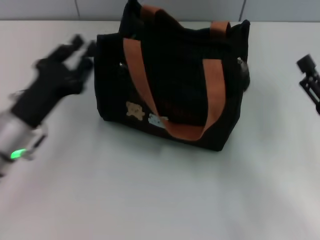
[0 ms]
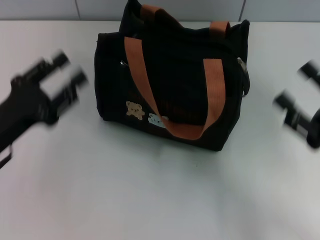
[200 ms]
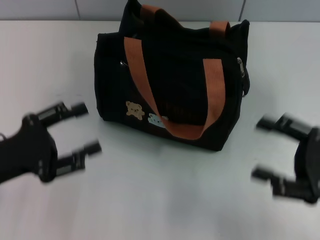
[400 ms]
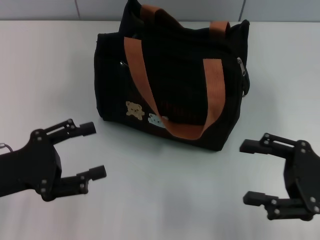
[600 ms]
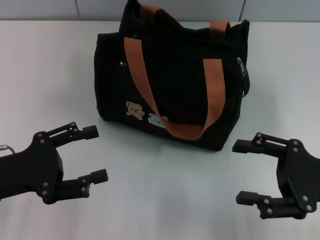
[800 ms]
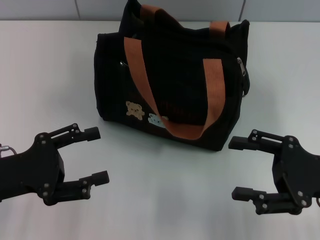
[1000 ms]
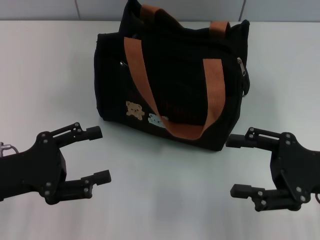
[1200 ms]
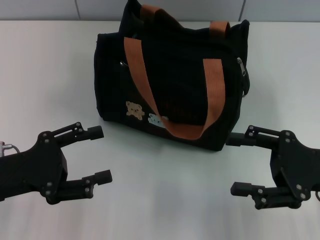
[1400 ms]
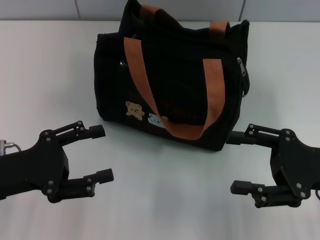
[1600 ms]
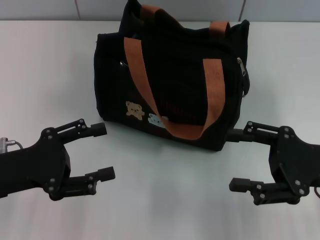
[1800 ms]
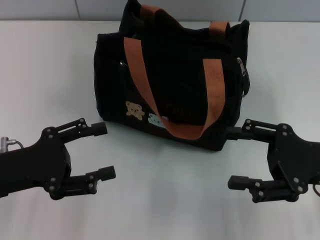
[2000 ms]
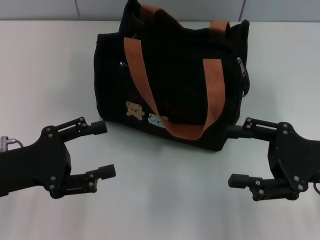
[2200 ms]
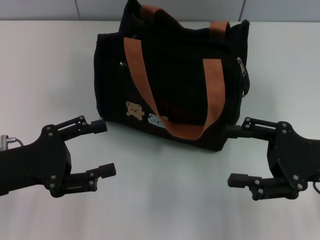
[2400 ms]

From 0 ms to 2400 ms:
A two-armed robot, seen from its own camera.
From 0 ms to 1200 ms: The left gripper travels backward by about 5 cm, and opens up.
From 1200 ms to 2400 ms: The grippers stay close to where they were, moving slightly.

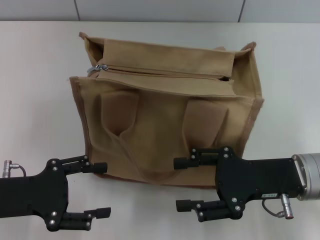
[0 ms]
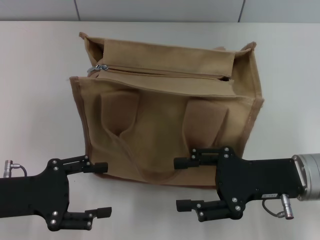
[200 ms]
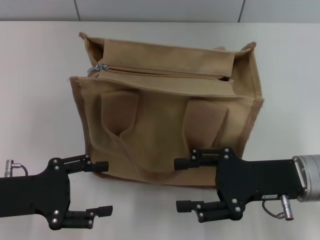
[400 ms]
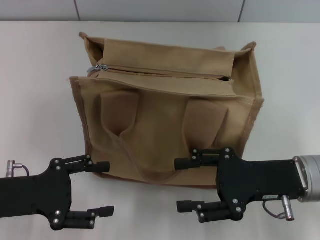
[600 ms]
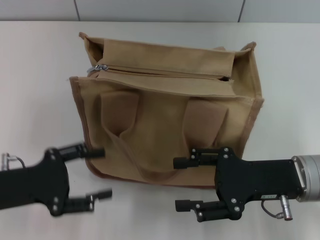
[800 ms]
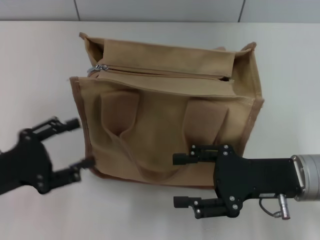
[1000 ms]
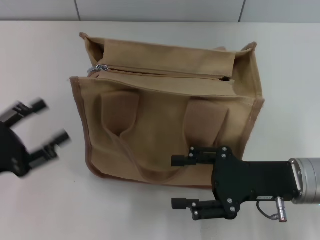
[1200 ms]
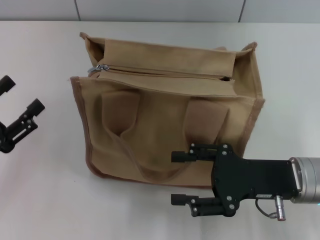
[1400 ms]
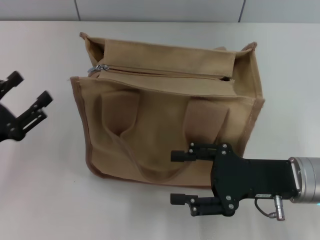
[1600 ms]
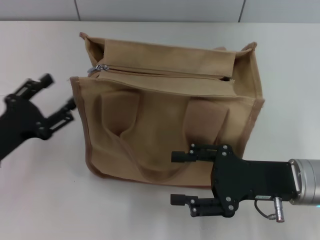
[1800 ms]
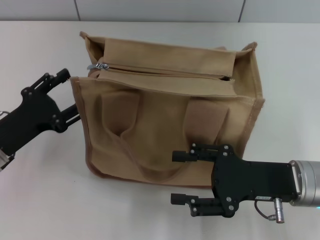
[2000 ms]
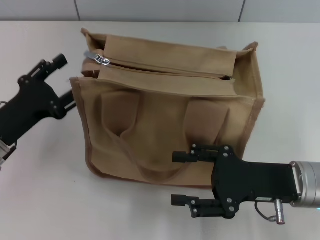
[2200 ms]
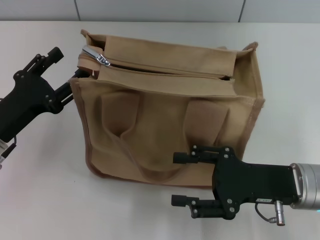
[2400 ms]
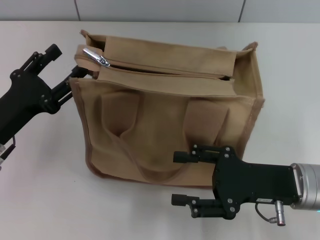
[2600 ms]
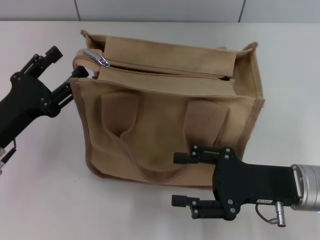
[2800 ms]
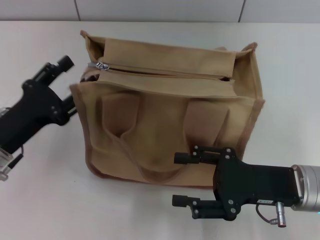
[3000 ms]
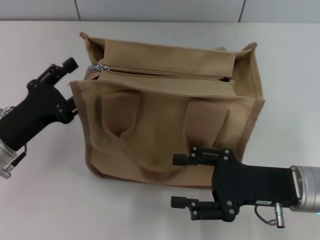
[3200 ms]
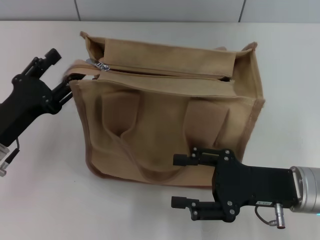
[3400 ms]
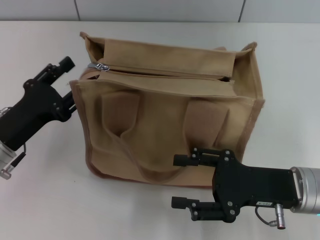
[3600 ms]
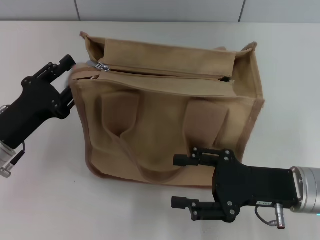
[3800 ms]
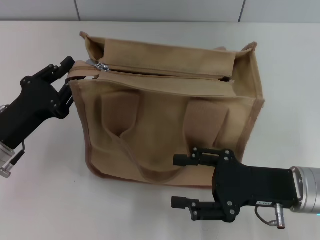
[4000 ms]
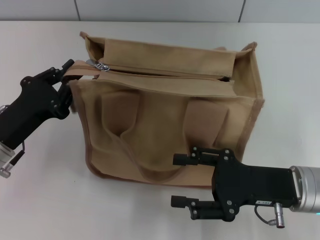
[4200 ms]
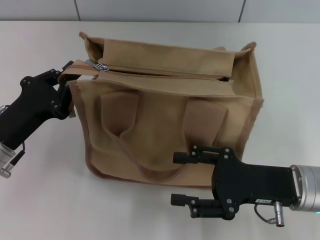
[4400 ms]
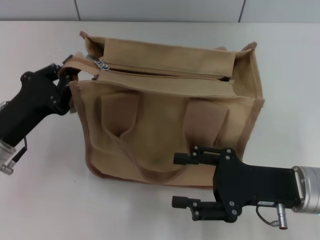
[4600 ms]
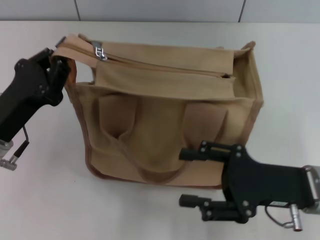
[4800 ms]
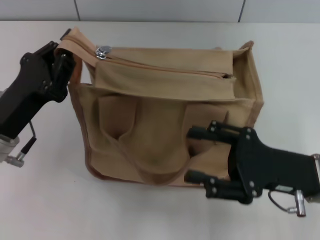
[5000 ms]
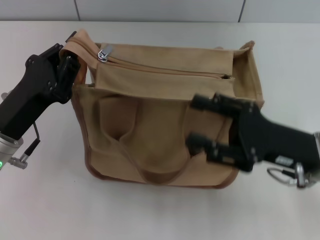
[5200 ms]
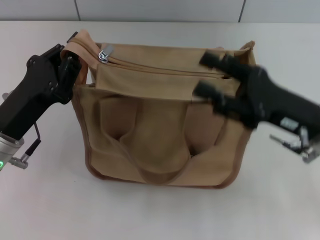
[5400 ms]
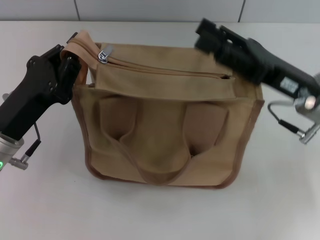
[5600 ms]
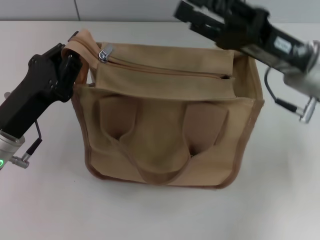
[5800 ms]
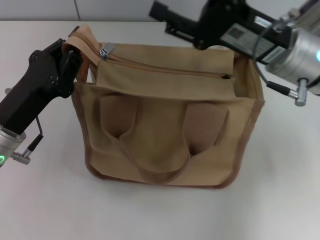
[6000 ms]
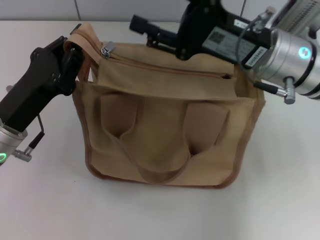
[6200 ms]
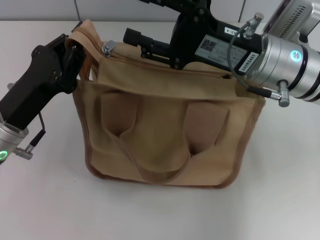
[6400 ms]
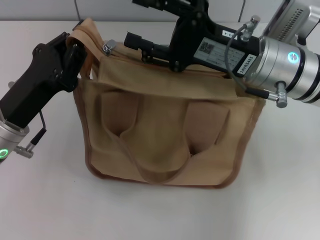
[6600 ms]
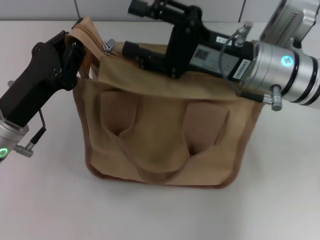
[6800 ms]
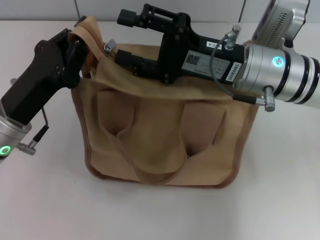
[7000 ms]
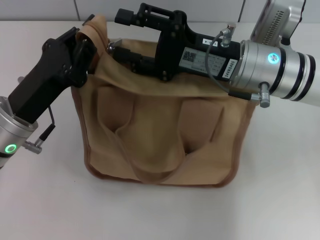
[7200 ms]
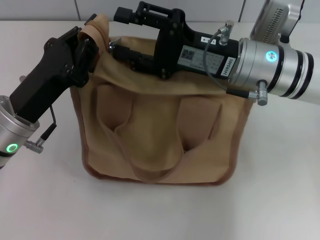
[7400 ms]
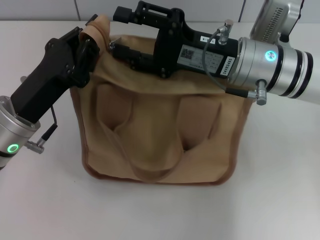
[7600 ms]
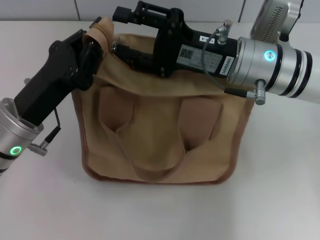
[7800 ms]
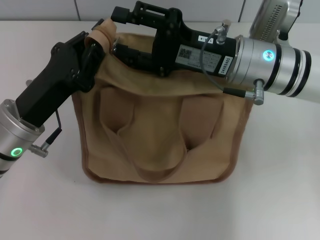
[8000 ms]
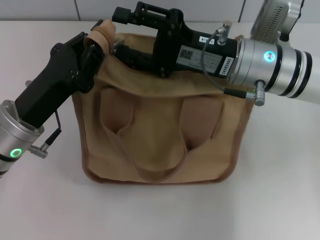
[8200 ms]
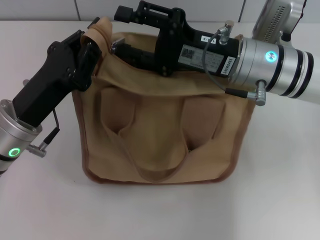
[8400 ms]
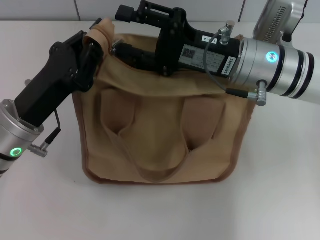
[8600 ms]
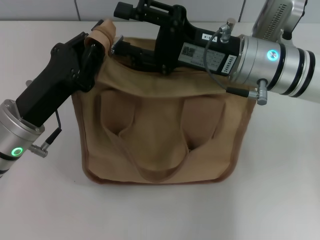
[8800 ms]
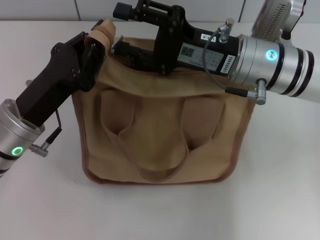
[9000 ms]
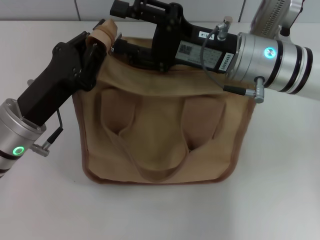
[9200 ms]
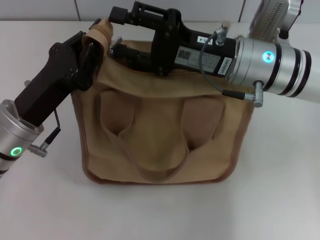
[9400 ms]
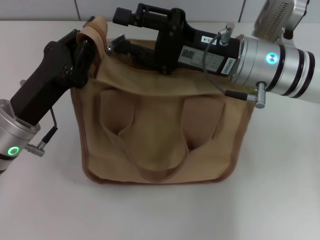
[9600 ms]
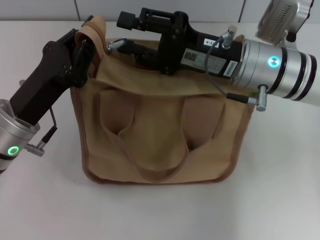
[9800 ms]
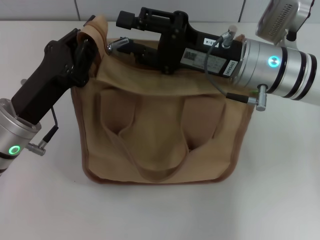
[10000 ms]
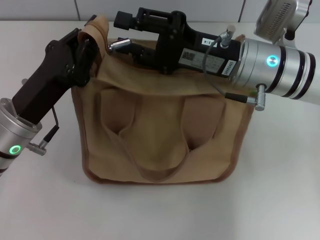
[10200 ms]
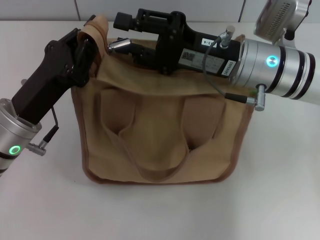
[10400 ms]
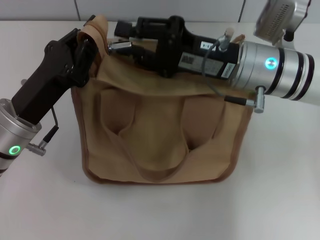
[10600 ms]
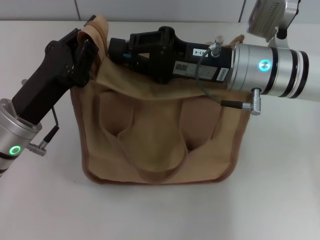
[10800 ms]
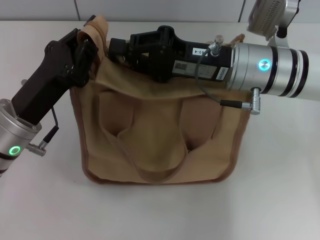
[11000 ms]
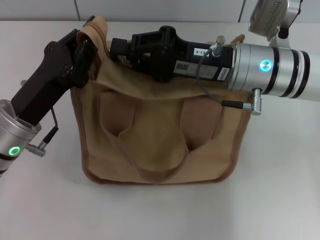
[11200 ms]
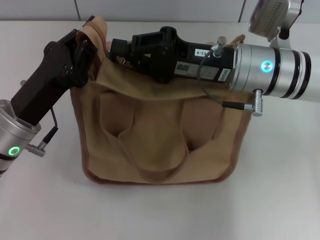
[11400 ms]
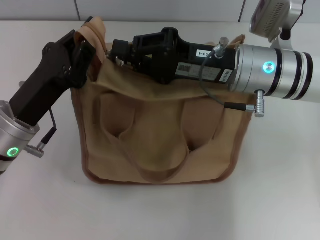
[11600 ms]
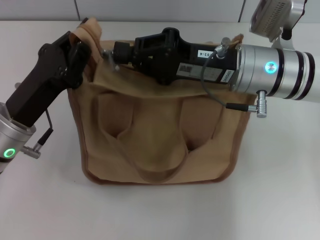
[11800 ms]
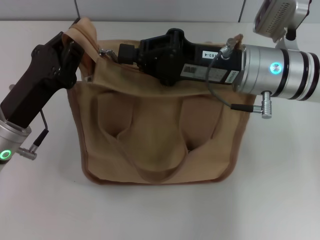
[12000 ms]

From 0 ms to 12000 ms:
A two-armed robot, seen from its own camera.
From 1600 ms to 3000 ms: The left gripper shifts approximately 5 cm to the right.
From 3000 ms to 4400 ms: The left gripper closes its fingers.
From 4400 ms to 6000 ms: The right gripper heads forward and upward, covering roughly 15 cm.
From 7600 ms to 9000 ms: The two grippers keep their place.
From 9000 ms to 10400 ms: The grippers make only small movements.
From 10400 ms to 12000 ms: The right gripper closes up.

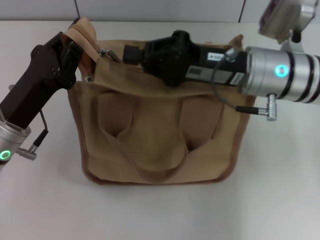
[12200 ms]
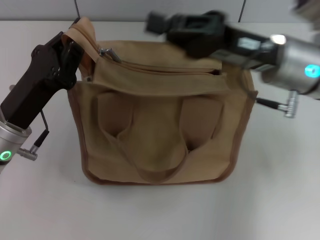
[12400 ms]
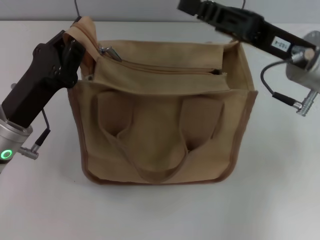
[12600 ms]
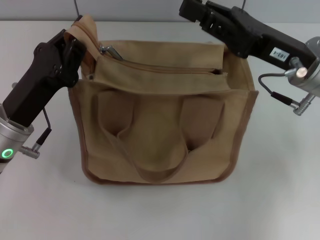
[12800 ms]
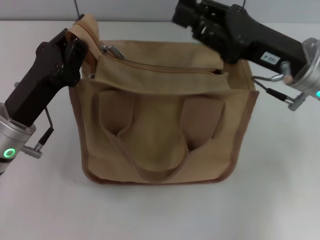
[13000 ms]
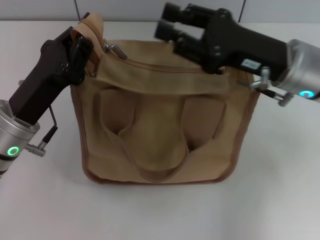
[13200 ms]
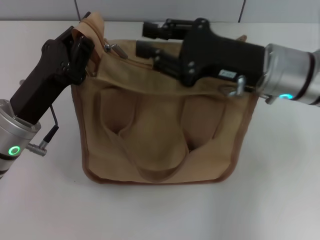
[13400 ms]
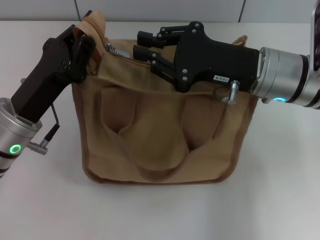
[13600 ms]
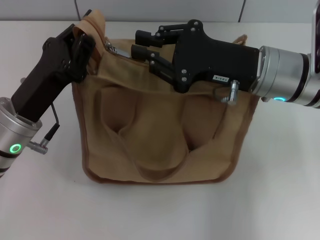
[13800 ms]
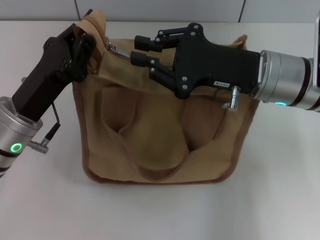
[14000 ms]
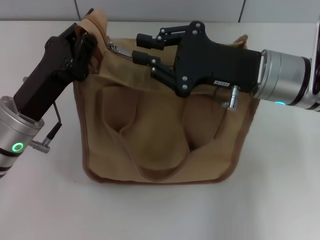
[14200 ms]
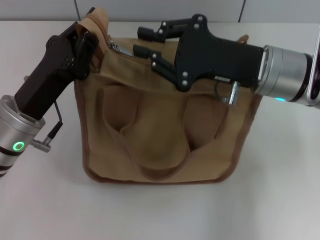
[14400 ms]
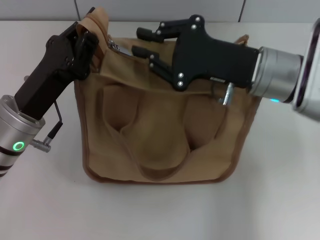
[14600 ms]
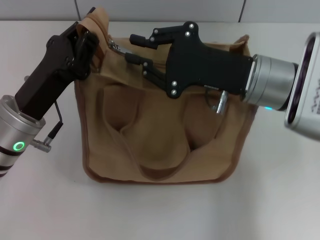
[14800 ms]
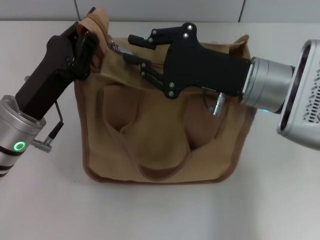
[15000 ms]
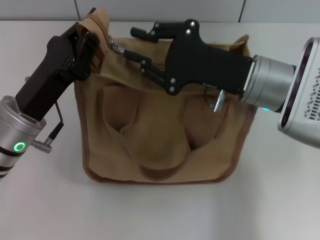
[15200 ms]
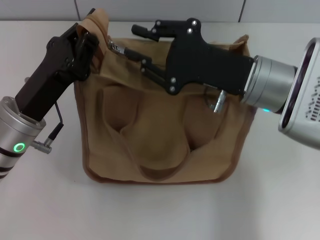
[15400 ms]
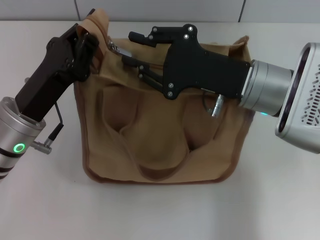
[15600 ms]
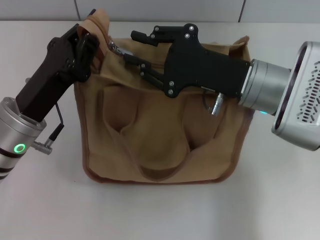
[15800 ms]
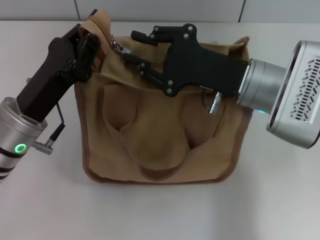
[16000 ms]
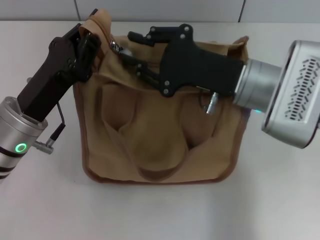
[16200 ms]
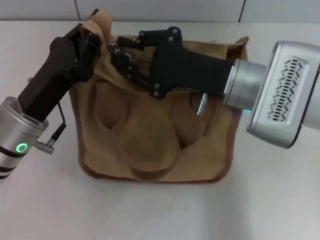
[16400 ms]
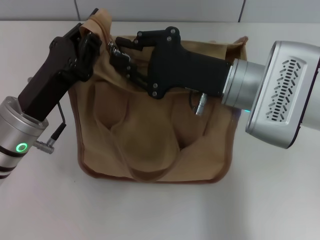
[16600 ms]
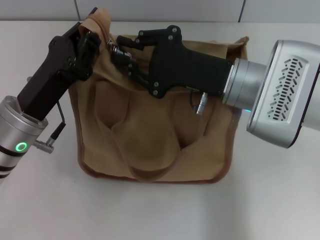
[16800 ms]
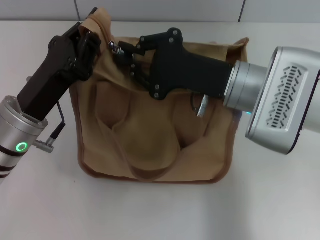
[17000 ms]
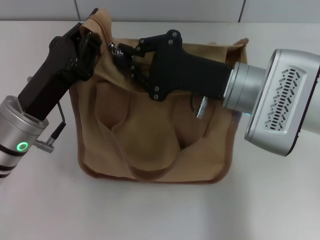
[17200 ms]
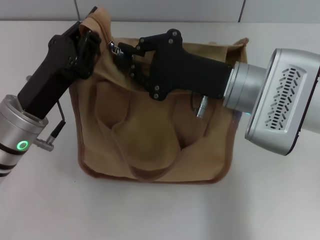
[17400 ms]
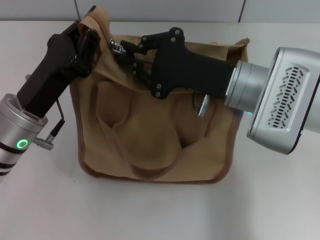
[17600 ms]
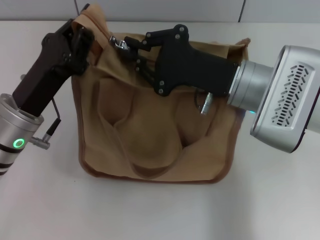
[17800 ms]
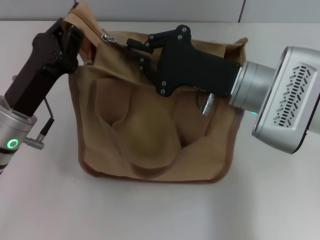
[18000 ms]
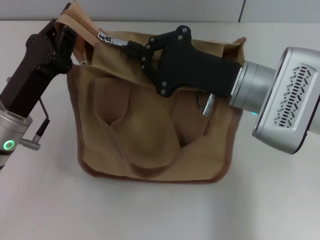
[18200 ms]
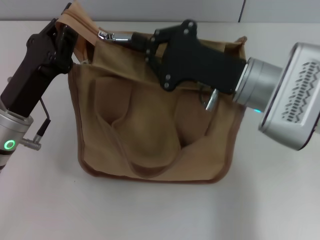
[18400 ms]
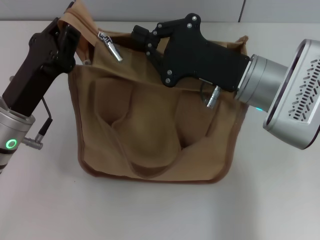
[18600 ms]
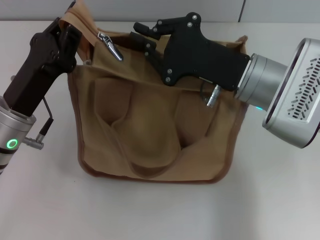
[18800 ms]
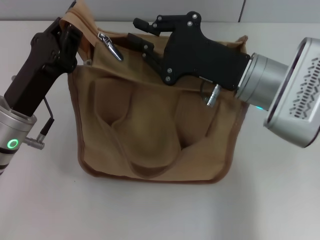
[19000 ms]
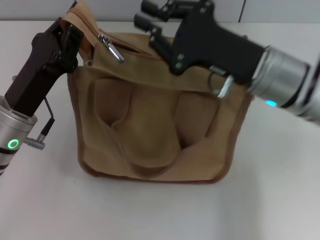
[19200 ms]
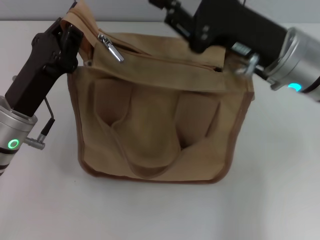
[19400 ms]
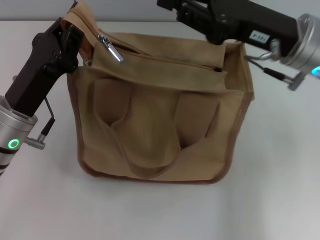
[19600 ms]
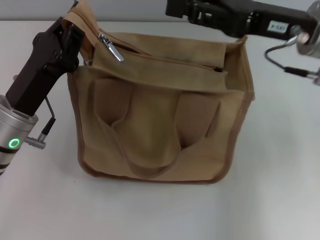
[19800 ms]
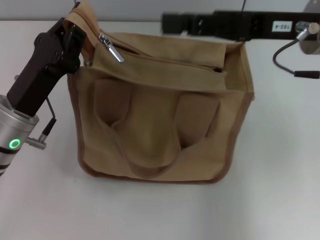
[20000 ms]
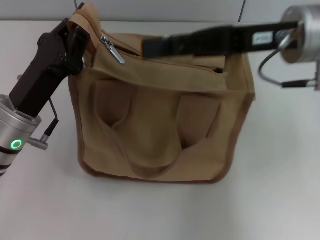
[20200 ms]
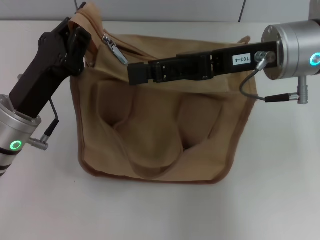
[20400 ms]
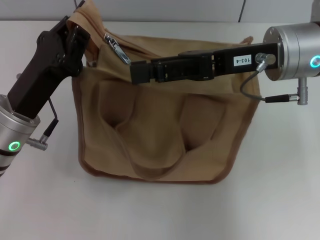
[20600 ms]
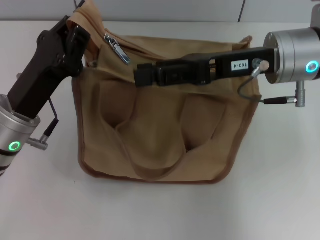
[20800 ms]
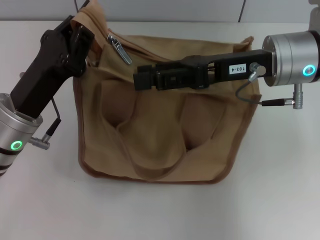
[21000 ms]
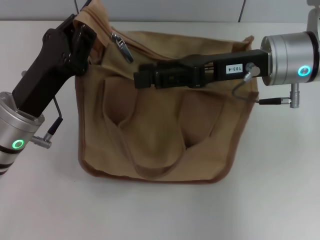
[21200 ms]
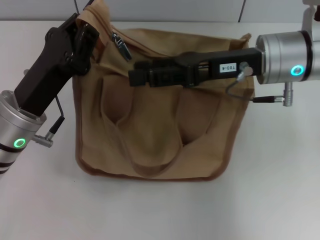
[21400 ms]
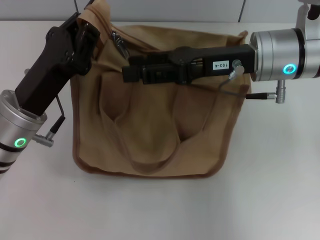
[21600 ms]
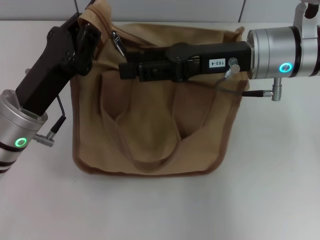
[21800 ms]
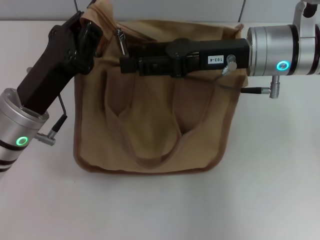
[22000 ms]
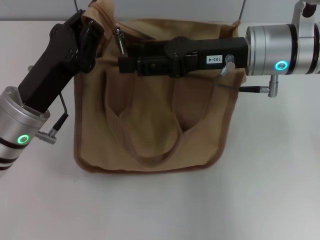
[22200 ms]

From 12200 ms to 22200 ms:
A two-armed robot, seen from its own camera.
From 12200 ms to 13600 ms: The right gripper opens.
From 15000 ms to 18000 ms: The grippers move only a little.
From 18000 ms to 19400 ms: The right gripper moves roughly 5 cm.
From 19400 ms to 20800 ms: The right gripper opens its fingers.
